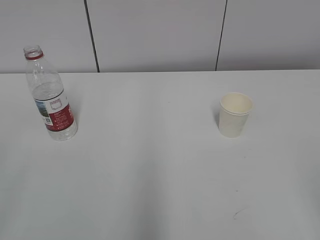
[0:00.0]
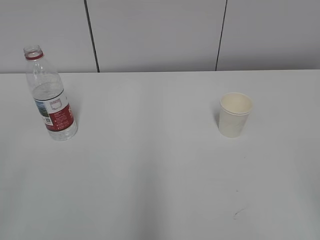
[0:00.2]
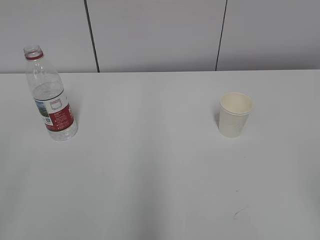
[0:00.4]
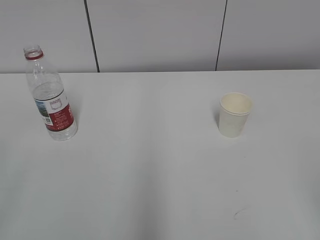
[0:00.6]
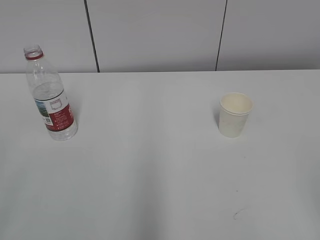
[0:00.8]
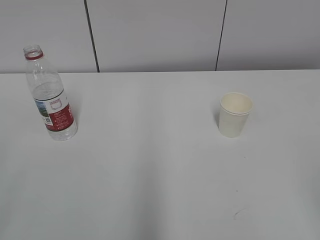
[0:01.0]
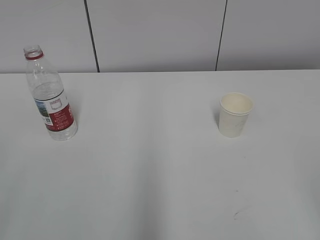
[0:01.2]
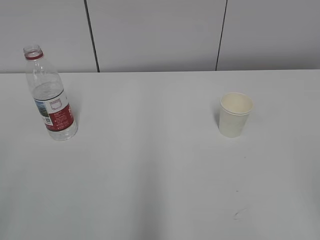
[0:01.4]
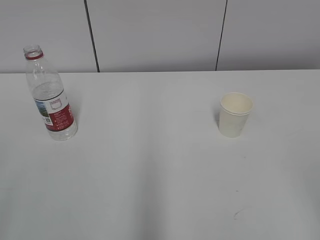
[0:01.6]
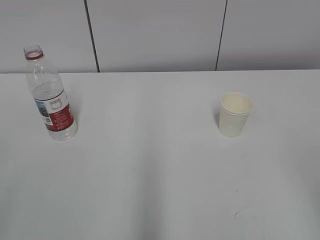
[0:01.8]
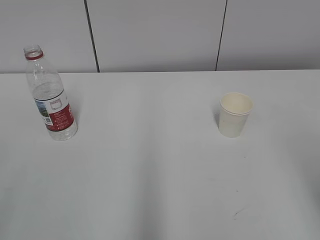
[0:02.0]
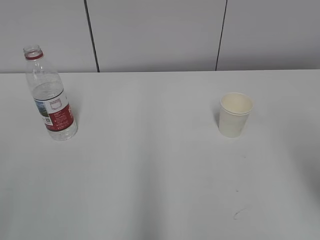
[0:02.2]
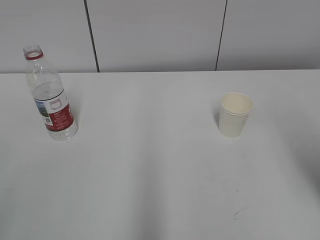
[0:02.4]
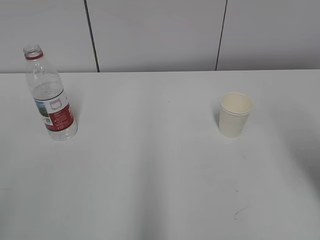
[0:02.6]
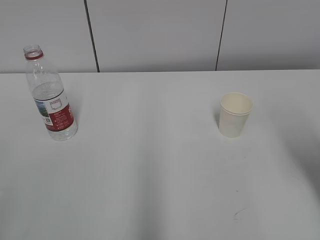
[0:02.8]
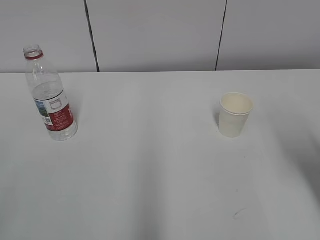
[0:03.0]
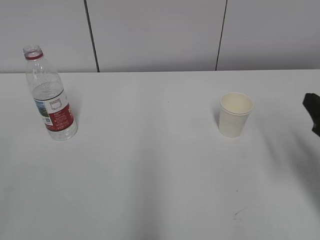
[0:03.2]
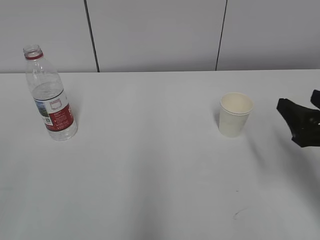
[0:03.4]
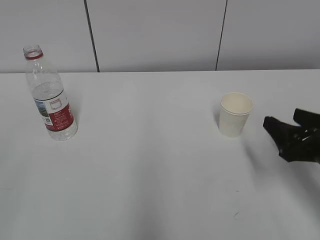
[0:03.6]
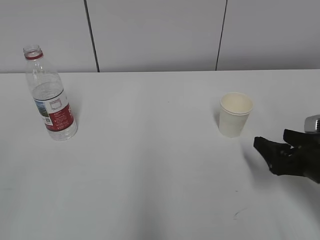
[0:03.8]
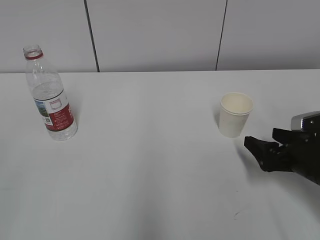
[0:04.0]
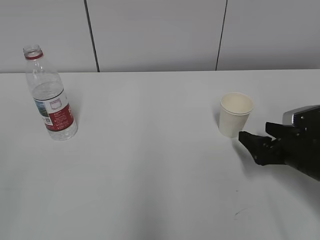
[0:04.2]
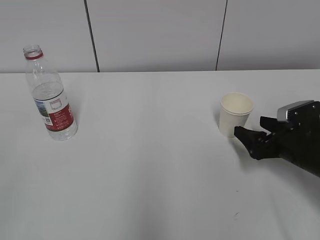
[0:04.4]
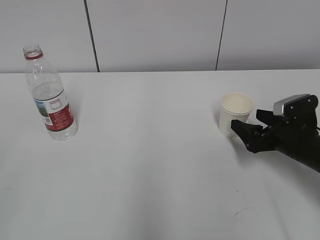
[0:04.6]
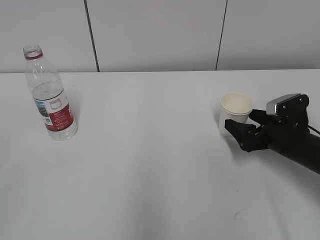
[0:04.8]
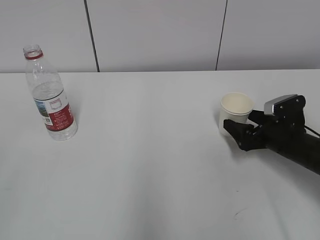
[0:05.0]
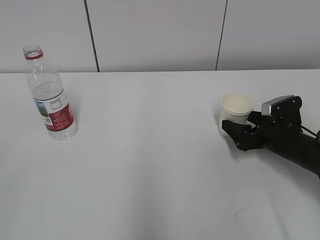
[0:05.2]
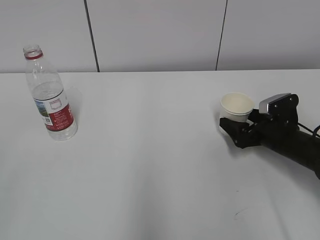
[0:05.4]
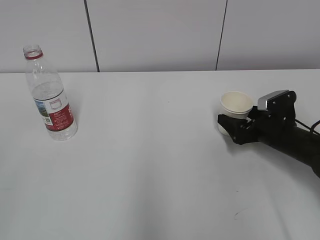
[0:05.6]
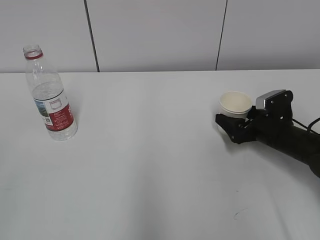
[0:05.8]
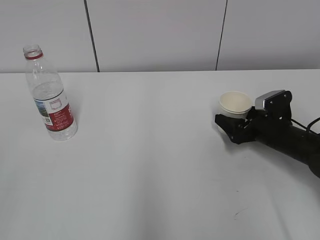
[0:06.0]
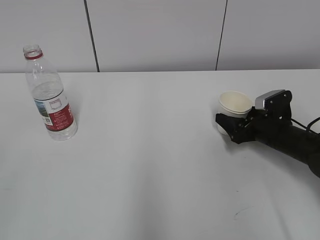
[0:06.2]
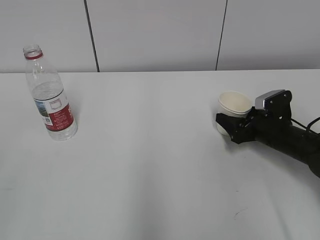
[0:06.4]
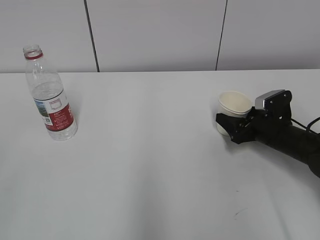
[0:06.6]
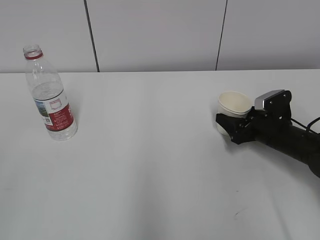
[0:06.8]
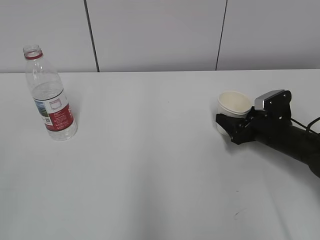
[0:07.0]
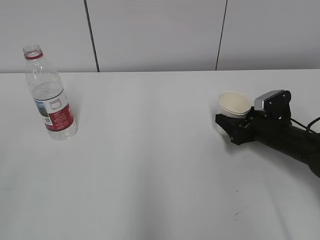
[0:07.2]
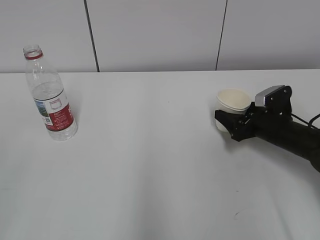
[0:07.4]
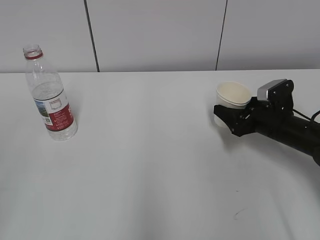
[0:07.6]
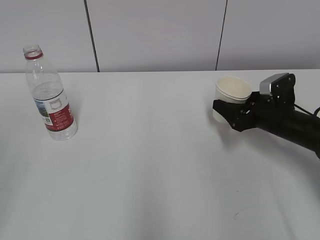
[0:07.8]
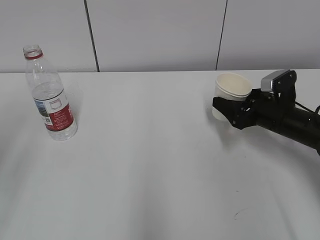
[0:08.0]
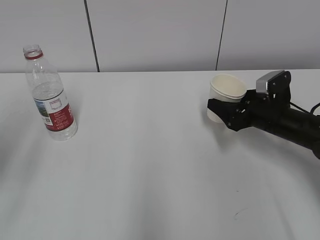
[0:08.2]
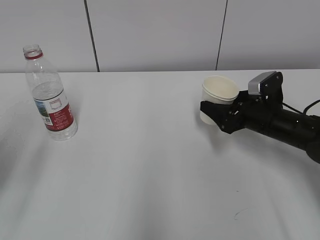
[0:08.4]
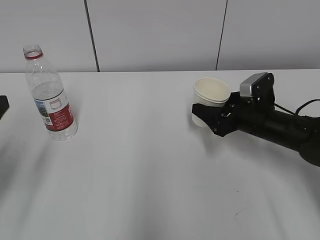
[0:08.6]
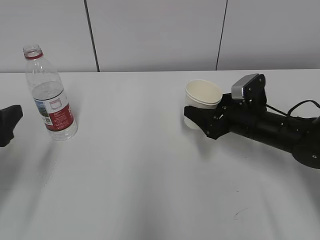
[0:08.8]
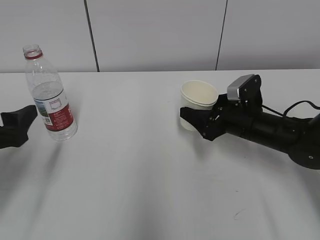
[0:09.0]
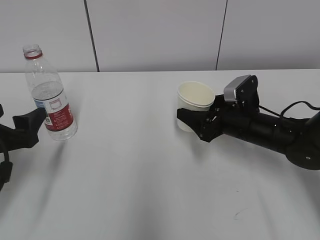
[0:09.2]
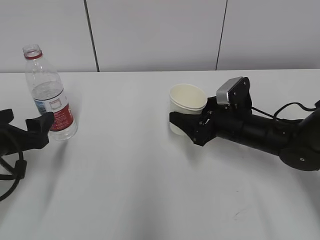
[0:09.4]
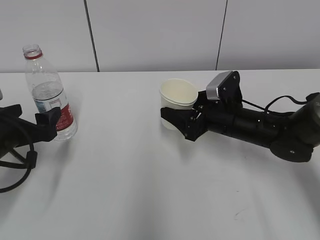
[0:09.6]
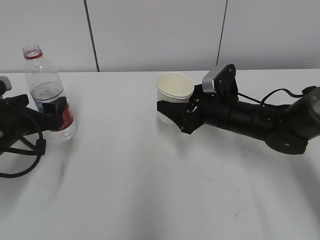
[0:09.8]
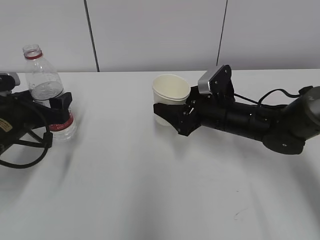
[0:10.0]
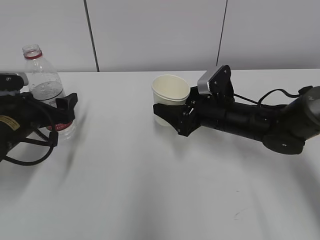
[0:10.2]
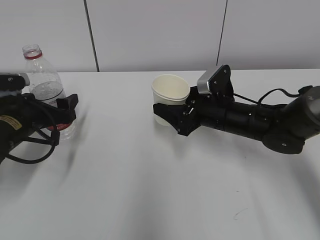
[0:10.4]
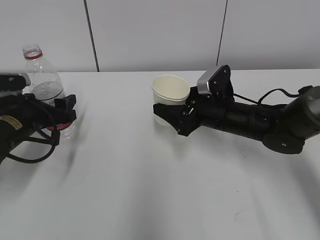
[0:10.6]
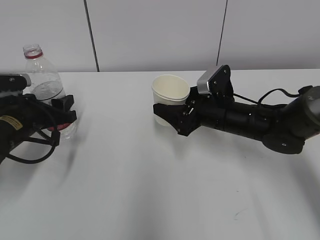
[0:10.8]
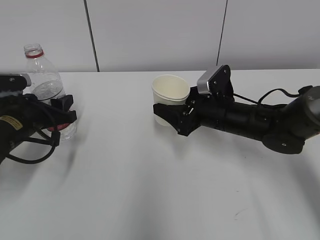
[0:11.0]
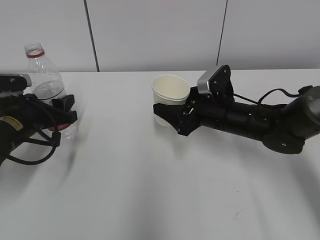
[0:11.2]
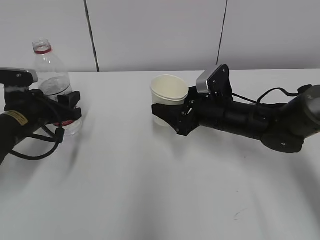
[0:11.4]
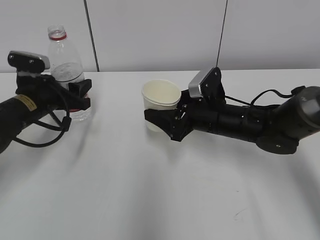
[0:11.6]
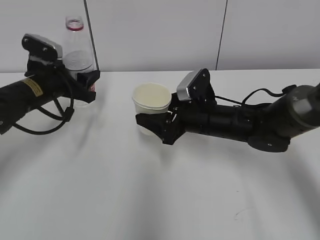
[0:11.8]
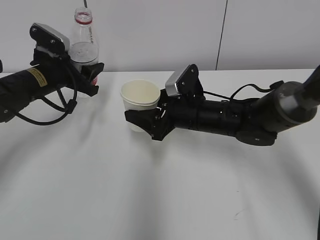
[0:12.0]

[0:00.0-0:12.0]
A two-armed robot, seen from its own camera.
Step, 0:00.0 to 0:06.0: Grab the paper cup with the right hand.
Step, 0:06.2 to 0:09.2: Grab the water bottle with the left hand.
0:01.6 to 0:03.0: The right gripper travels forward by about 20 cm.
0:03.0 to 0:04.4: The right gripper travels downward and forward by approximately 20 cm, and opens up.
0:04.4 to 0:06.0: The right gripper heads forward, covering roughly 5 cm.
0:06.0 to 0:07.6: The right gripper closes its fingers.
0:07.6 to 0:09.0: The right gripper goes some 5 cm to the left. Meanwhile the left gripper goes approximately 25 cm forward and downward.
0:09.0 to 0:10.4: The right gripper shifts by roughly 5 cm. The left gripper is displaced forward and downward by roughly 15 cm.
0:10.4 to 0:12.0: The left gripper moves forward and upward, approximately 10 cm, and closes its fingers.

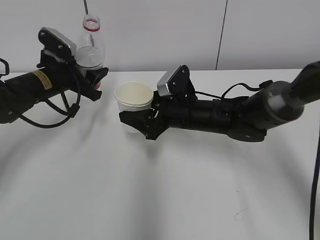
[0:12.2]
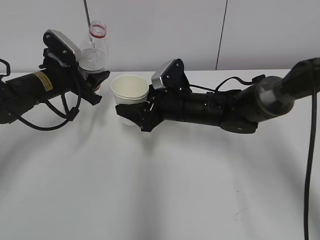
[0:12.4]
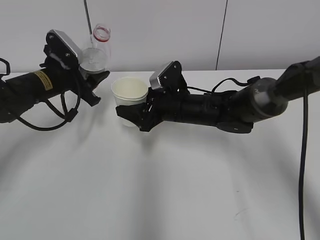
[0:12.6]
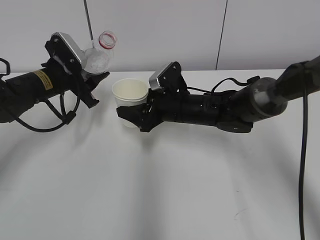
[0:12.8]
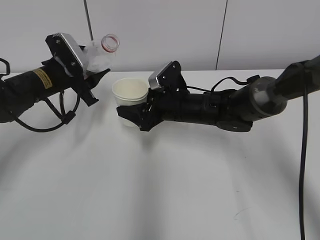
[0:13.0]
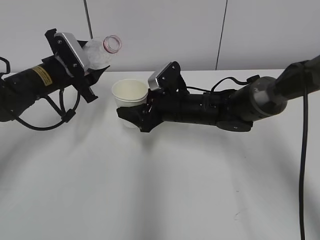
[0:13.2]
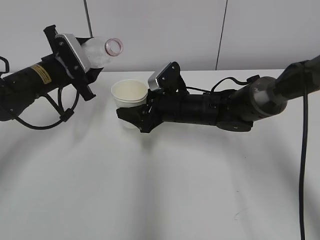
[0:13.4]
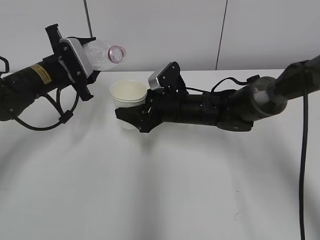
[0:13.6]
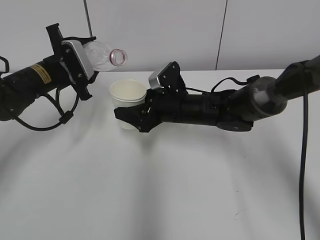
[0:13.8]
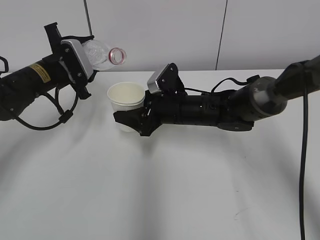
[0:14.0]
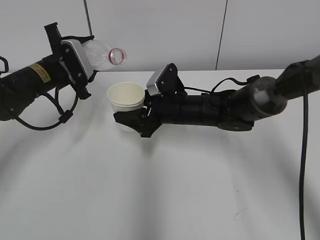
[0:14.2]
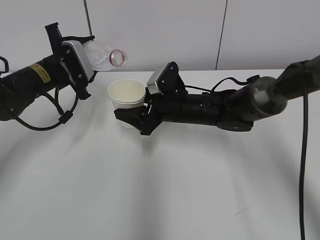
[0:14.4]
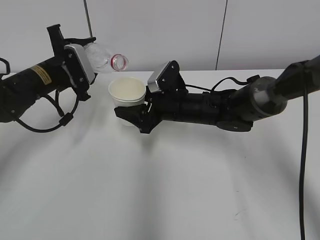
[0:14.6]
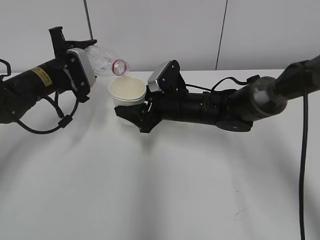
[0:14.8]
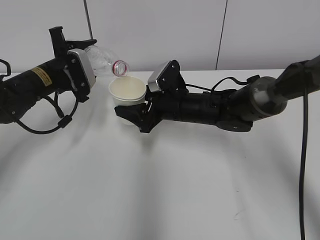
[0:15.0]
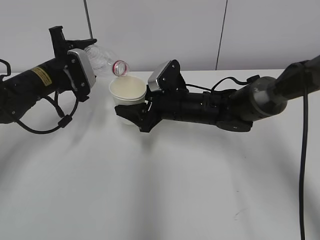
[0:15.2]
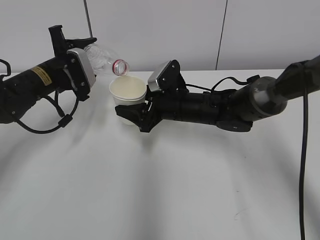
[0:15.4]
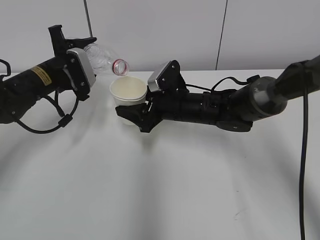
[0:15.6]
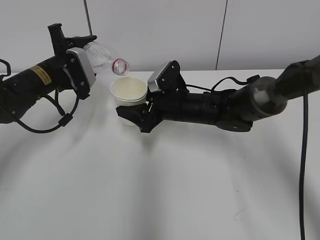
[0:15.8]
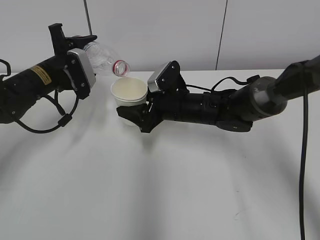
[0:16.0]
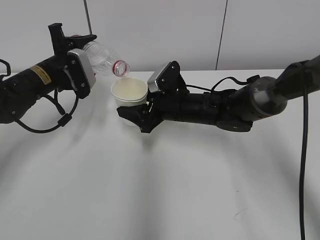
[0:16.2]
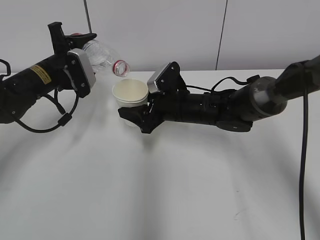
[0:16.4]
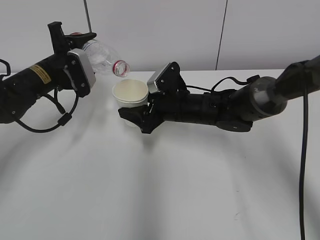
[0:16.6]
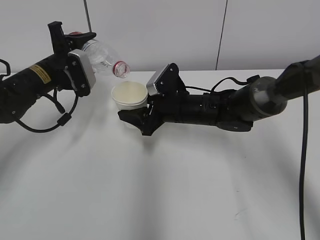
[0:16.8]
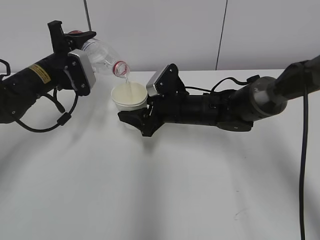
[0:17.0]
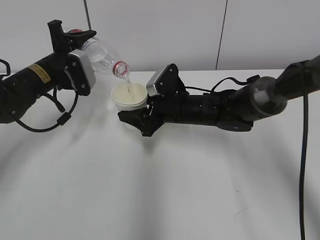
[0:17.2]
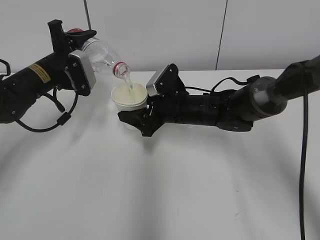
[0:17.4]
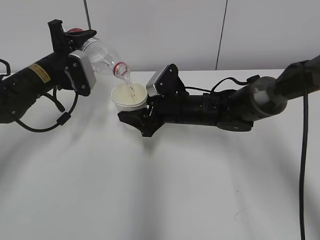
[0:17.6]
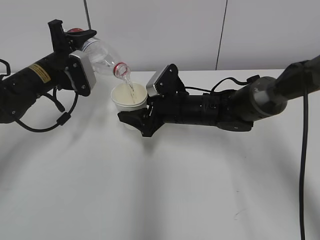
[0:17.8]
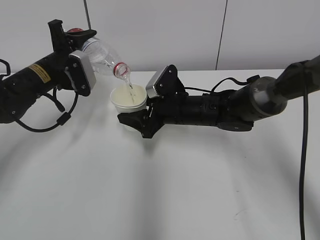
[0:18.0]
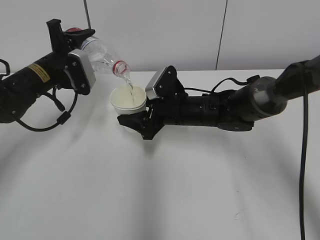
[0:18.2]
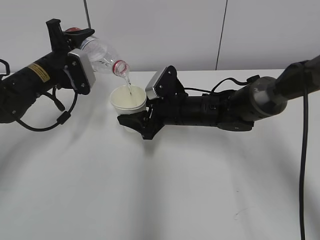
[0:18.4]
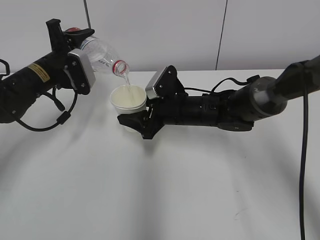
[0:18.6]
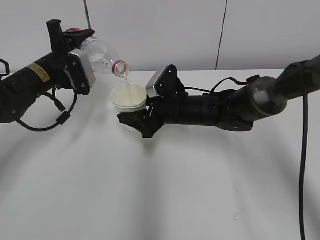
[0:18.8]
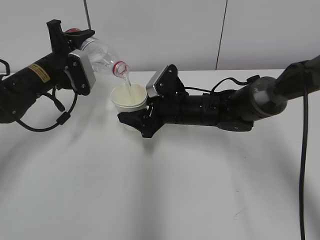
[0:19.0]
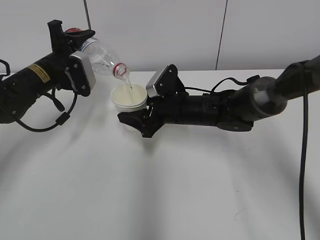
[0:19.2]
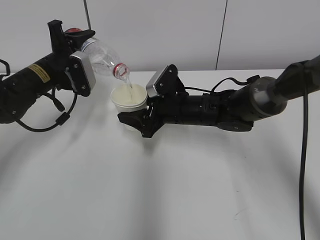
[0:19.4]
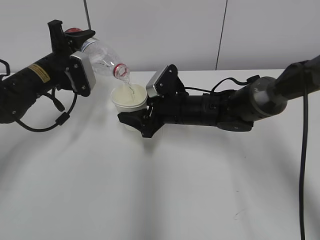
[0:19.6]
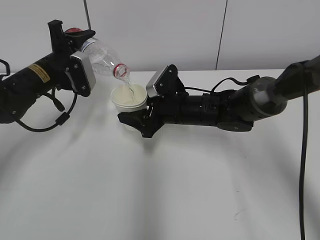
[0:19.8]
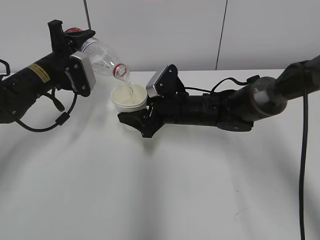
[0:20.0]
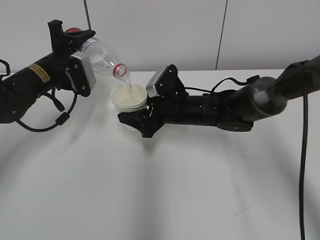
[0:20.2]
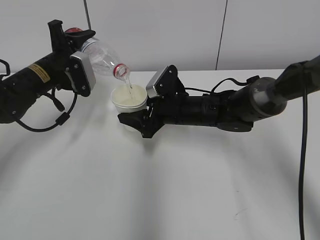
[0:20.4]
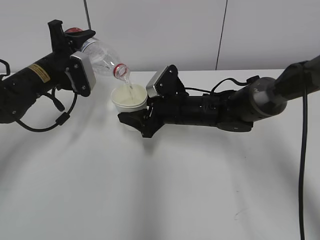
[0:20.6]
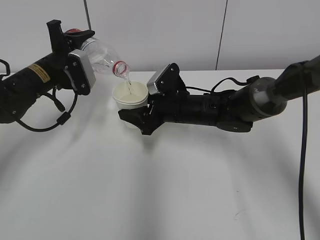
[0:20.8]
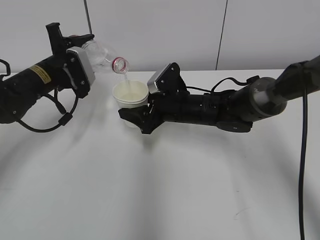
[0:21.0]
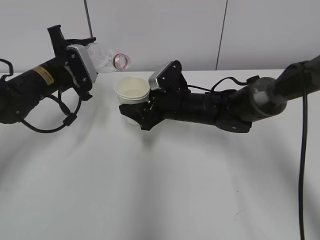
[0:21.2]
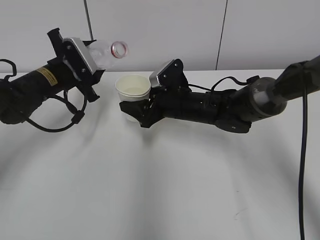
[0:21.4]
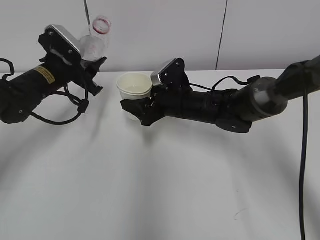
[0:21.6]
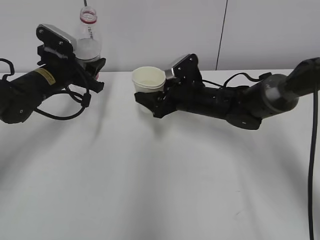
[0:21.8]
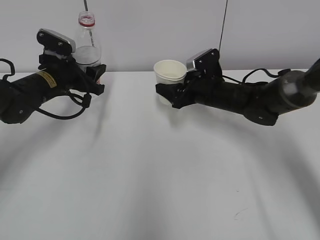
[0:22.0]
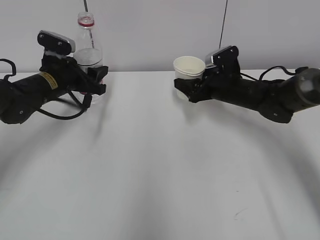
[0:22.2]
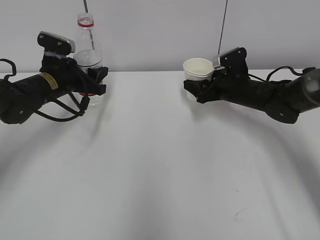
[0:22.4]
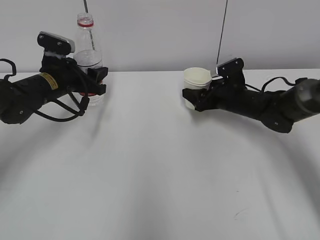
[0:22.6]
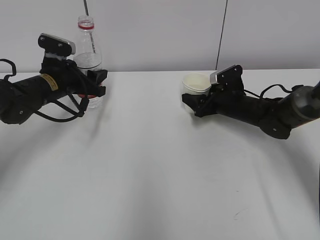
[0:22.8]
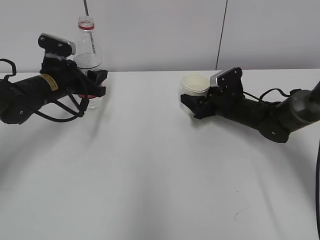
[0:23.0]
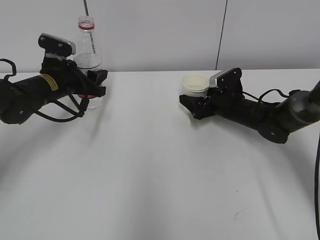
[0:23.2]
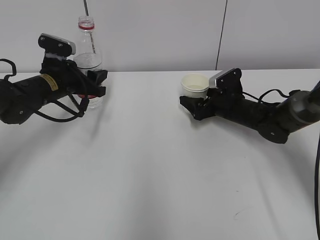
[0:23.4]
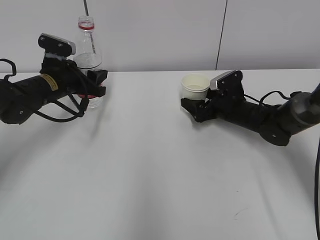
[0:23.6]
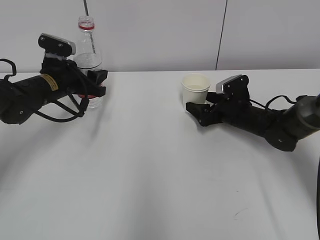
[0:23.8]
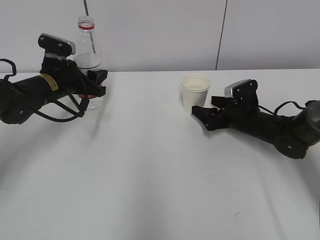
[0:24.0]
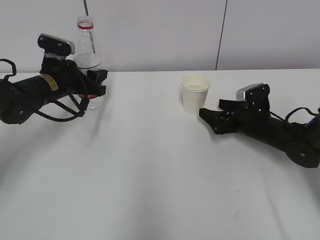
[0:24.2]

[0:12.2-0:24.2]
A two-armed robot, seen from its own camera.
Step, 0:14.0 to 0:17.6: Fill water with the right hand.
Step, 0:14.0 to 0:17.6: Pour water with the left hand.
Step, 0:17.8 to 0:18.2: Collect water with the left hand.
Step, 0:19.4 to 0:21.0: Place the water bottle with the left hand.
0:13.8 to 0:16.6: There are only small adjustments of the grippers.
0:16.6 to 0:18.2: The two grippers keep their place.
0:18.2 to 0:19.8: Neither gripper changes place.
0:19.8 to 0:21.2: The grippers move only a little.
0:21.2 to 0:22.6: The right gripper moves to the right, approximately 15 cm.
0:22.6 to 0:24.2: The right gripper ends up approximately 5 cm from where it was, and opens.
